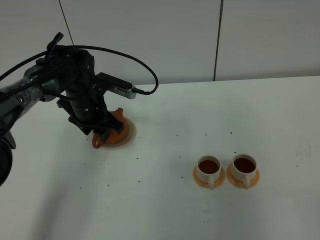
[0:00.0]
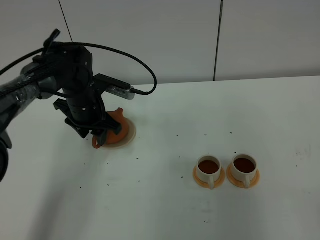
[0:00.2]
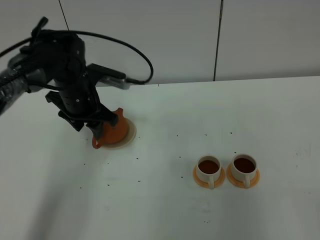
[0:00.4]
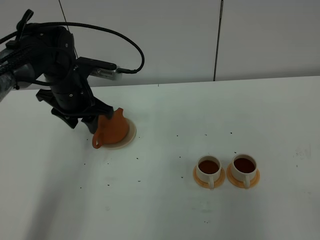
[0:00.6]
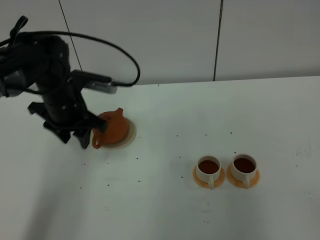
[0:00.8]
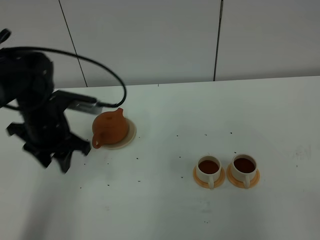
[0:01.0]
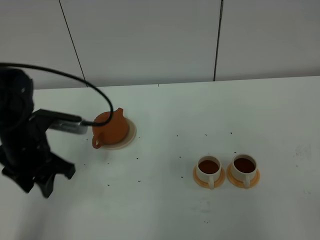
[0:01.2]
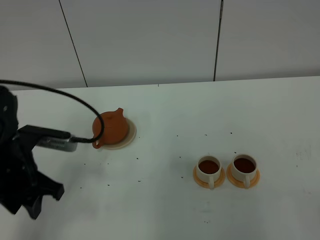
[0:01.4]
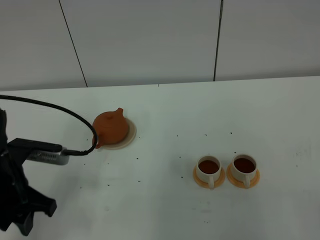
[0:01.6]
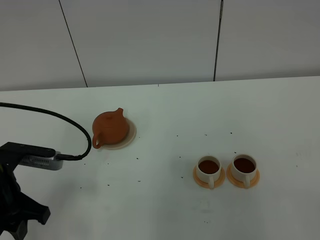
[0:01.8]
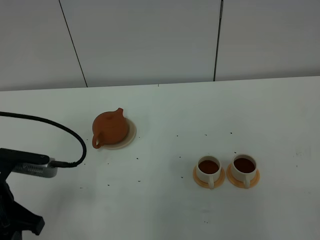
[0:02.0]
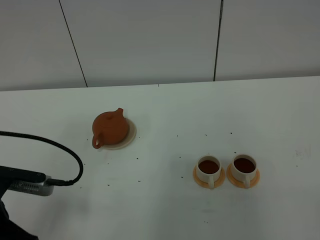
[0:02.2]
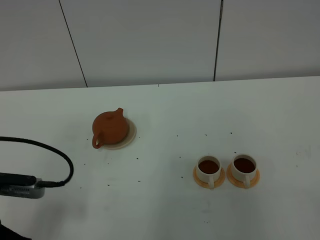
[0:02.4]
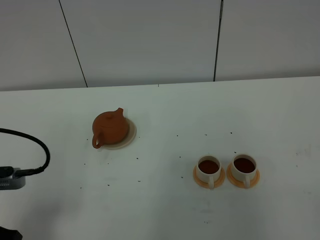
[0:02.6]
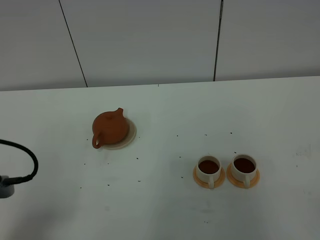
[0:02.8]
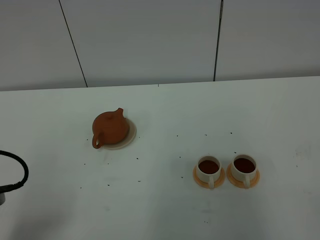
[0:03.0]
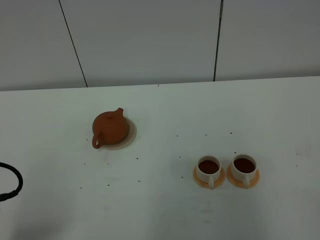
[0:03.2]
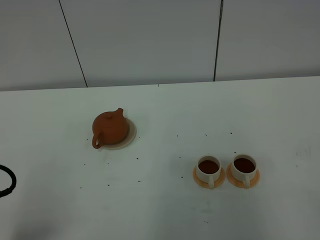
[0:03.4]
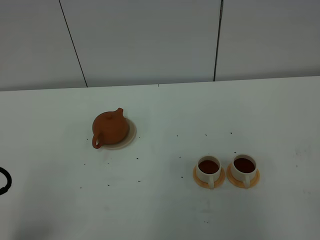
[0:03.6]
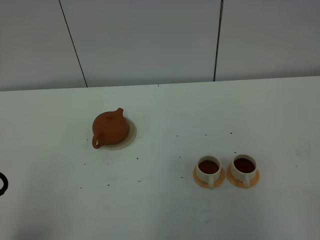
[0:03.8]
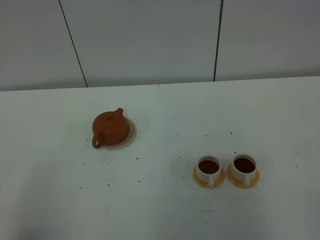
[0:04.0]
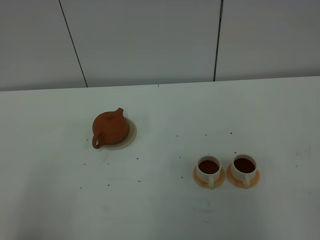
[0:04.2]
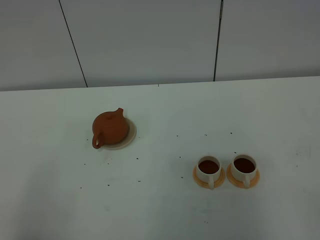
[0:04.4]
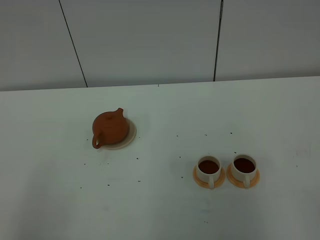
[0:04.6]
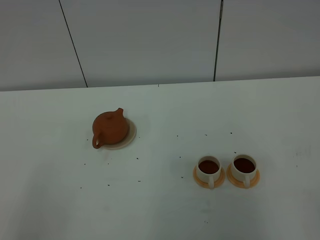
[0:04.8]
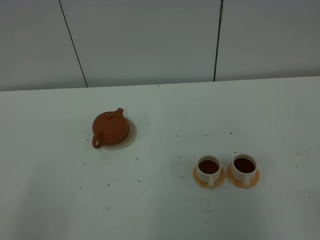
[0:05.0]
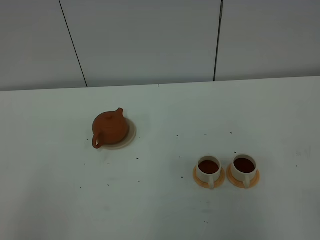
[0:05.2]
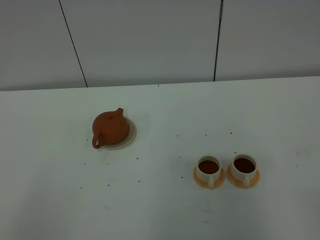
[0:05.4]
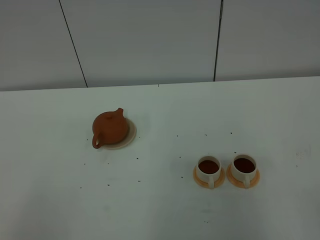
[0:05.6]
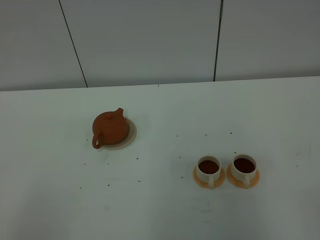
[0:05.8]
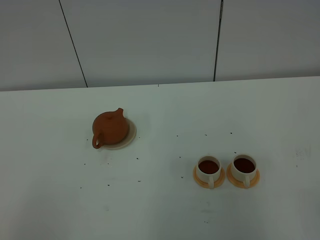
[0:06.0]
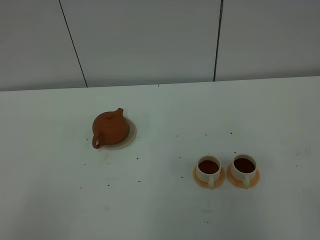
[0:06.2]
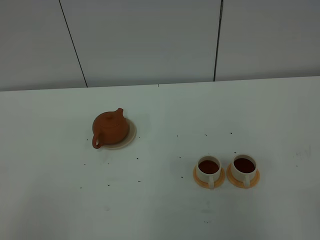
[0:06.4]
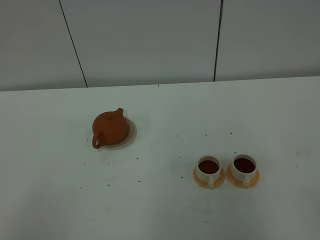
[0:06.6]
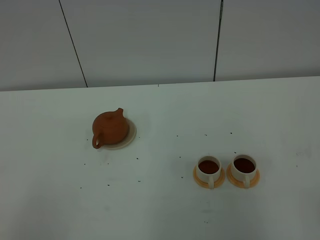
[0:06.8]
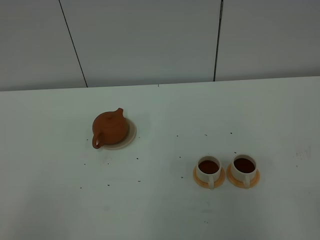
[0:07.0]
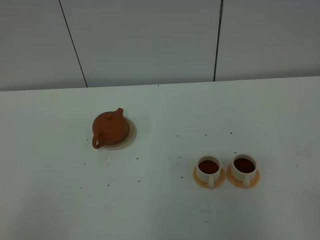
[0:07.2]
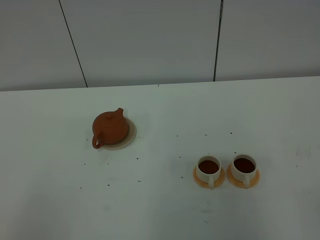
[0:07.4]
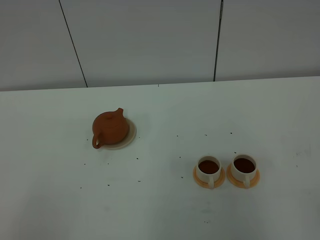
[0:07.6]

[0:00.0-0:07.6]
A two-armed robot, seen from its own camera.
Task of the whole recording: grasp the brown teapot and pour the tea into the two white teacups one by one, put the brown teapot back in its original place.
0:00.0 to 0:01.6: The left gripper heads backward, covering approximately 20 cm.
0:01.6 to 0:03.0: The left gripper is displaced backward by some 10 cm.
0:06.0 to 0:07.6: The two grippers keep their place.
